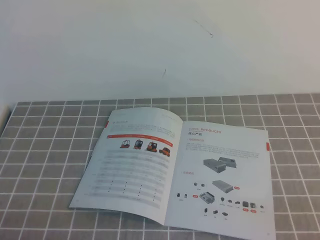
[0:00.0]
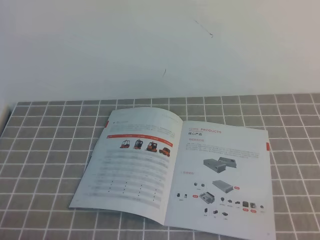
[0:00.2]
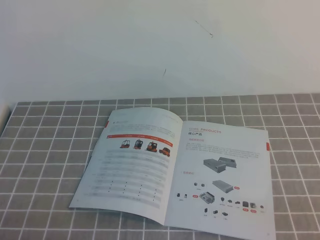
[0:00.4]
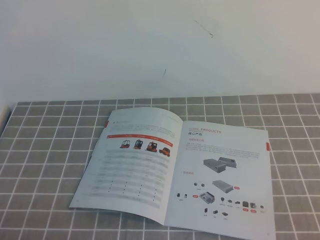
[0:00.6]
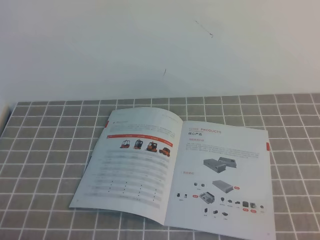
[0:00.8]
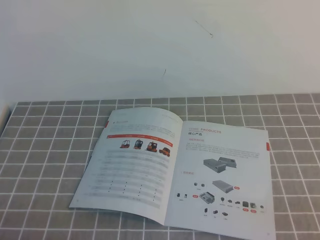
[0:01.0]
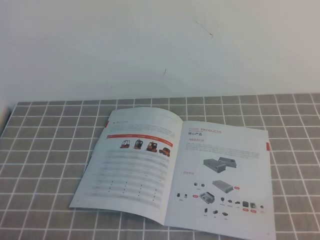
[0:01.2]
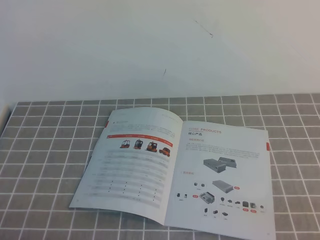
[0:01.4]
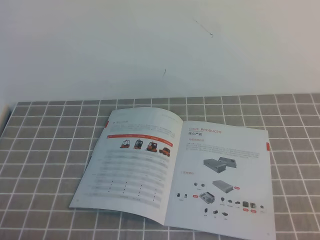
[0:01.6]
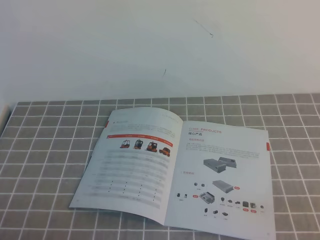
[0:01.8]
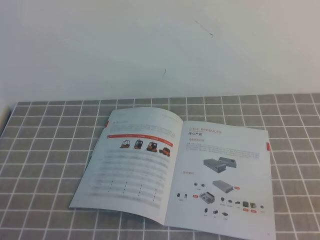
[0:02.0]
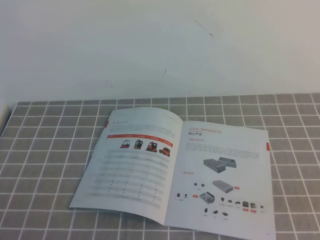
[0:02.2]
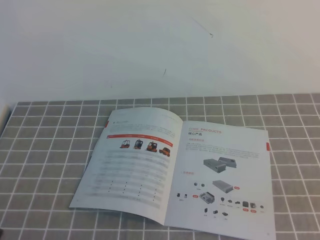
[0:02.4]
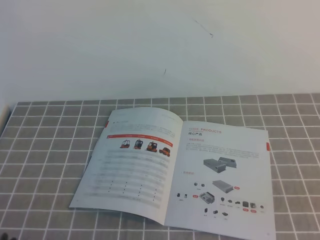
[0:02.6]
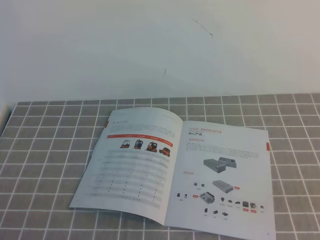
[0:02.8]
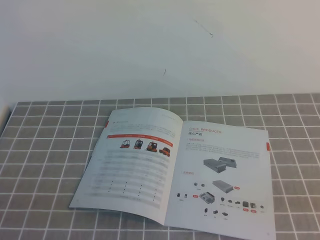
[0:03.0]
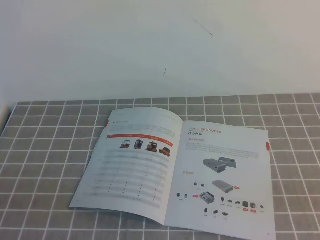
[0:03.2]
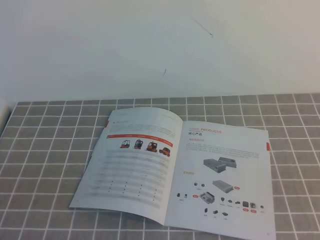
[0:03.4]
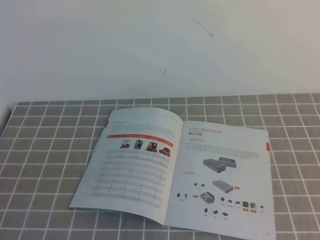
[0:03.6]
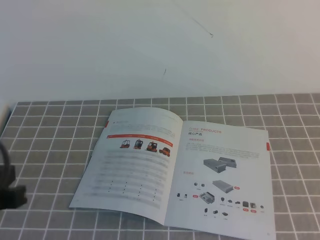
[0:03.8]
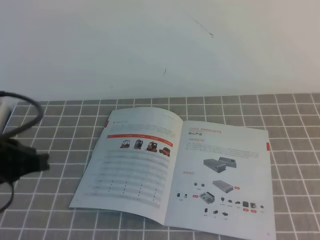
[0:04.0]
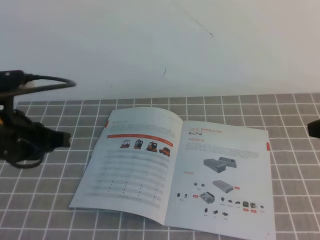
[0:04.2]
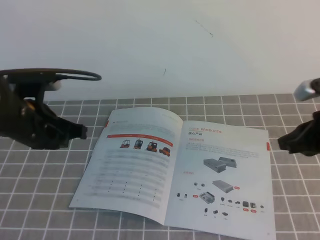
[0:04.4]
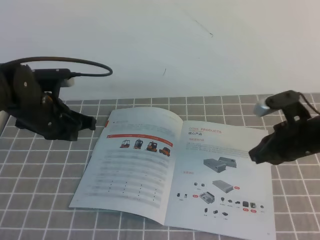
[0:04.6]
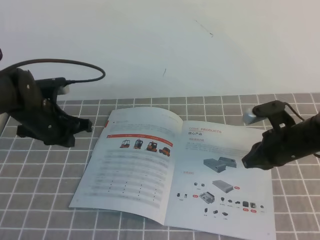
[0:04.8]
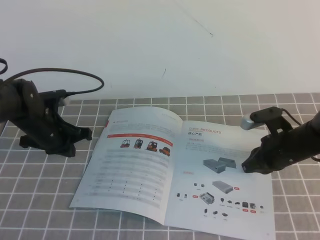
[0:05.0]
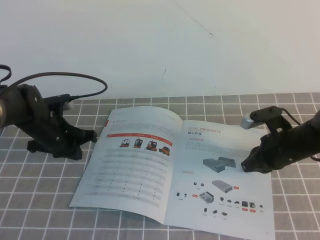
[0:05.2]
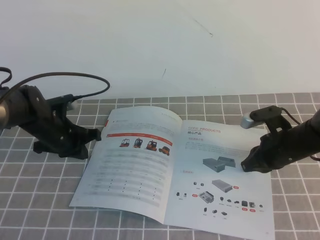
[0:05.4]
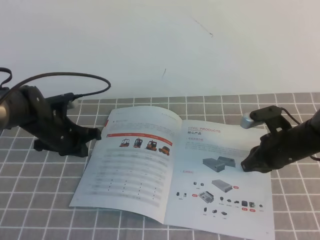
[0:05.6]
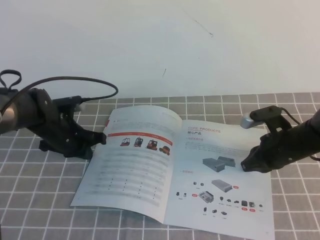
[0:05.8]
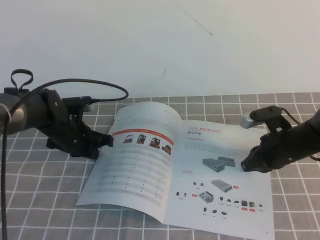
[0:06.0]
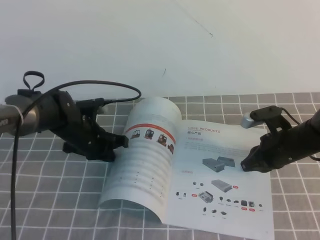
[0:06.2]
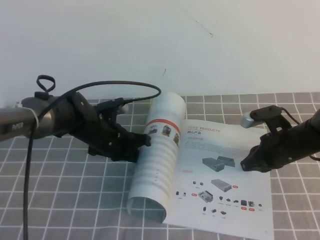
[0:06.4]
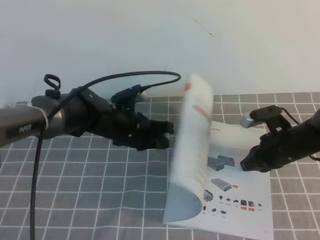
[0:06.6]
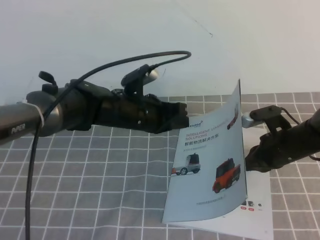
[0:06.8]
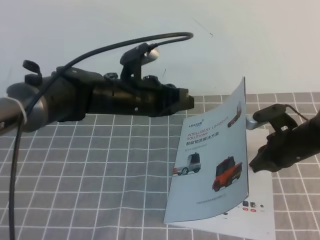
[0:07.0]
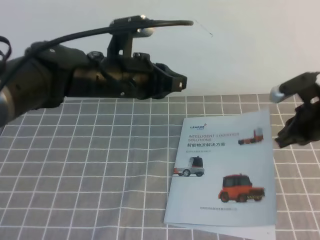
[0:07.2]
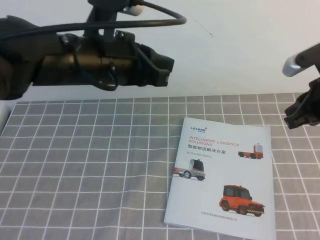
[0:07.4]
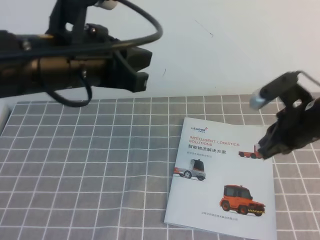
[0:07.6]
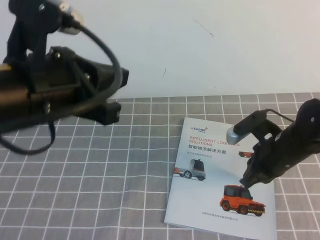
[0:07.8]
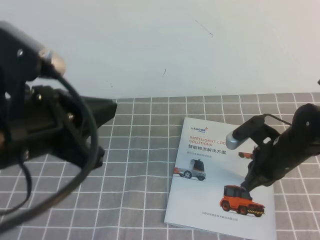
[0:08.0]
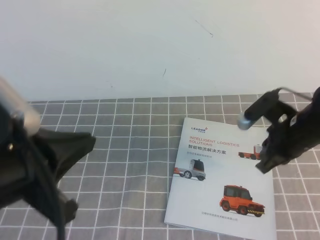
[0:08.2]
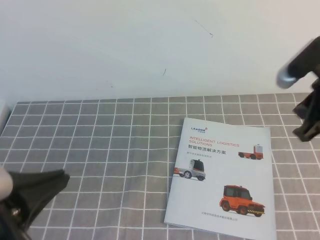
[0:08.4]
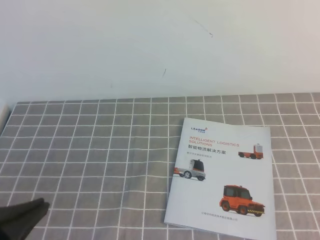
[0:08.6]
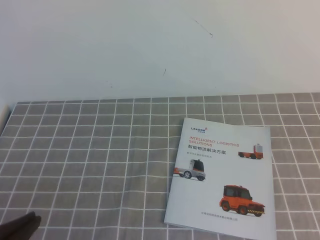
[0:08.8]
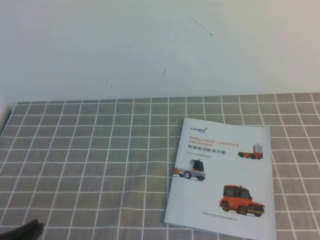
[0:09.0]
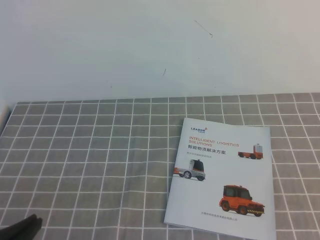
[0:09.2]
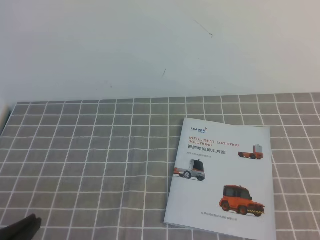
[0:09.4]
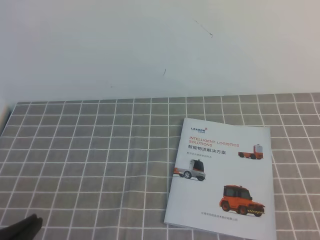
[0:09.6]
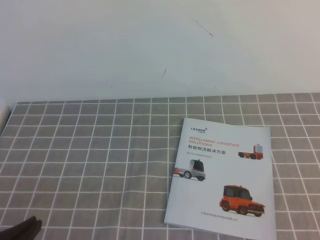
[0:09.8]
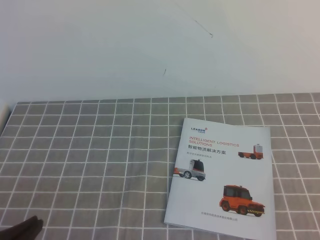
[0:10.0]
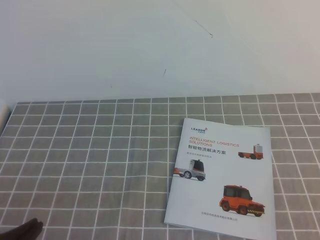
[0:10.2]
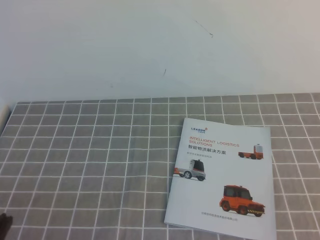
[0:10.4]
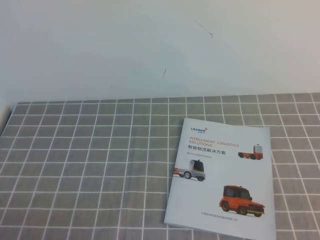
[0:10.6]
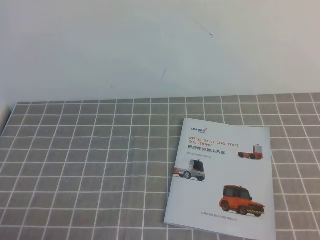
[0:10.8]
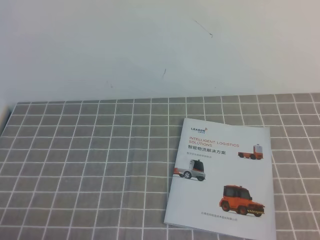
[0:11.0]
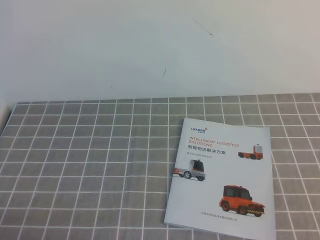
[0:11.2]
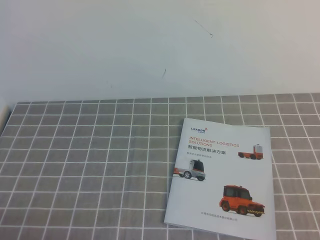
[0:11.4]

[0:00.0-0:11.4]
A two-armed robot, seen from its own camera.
Task of the whole recording: on the grey tablecloth, hold the book with one hand and close it with the other.
0:02.8 to 0:04.2: The left gripper moves forward, some 20 cm.
0:04.2 to 0:05.6: The right gripper goes some 20 cm downward, forward and to the left. The left gripper goes roughly 25 cm forward and downward.
0:05.6 to 0:07.2: The left gripper heads upward, to the right and backward, covering approximately 20 cm. Meanwhile the right gripper moves upward, roughly 5 cm.
0:07.2 to 0:08.6: The left gripper goes about 30 cm backward and to the left, while the right gripper swings up and down, roughly 20 cm each way, with 2 reversals.
0:08.6 to 0:10.0: The left gripper moves downward, approximately 5 cm; the right gripper heads backward and downward, covering about 20 cm.
0:10.0 to 0:11.4: The left gripper goes approximately 5 cm downward.

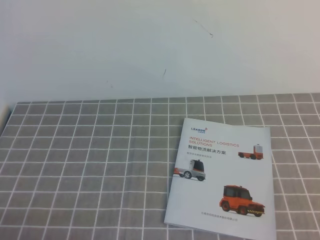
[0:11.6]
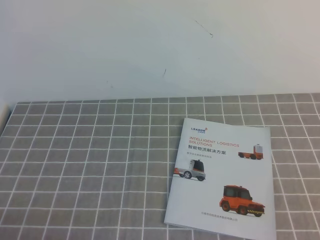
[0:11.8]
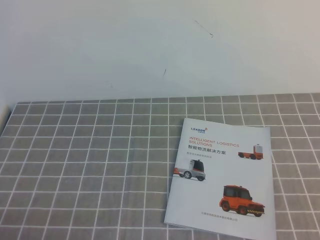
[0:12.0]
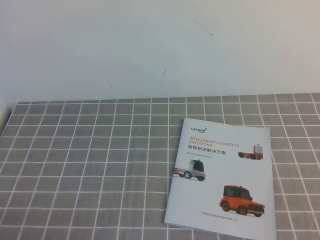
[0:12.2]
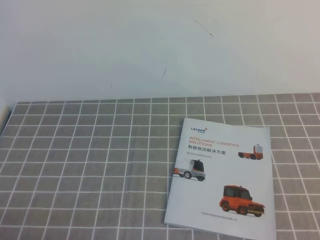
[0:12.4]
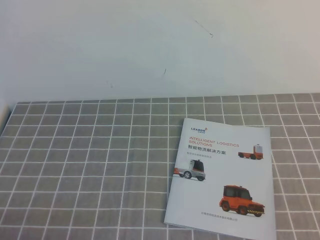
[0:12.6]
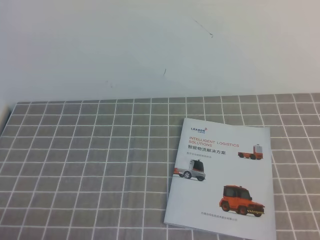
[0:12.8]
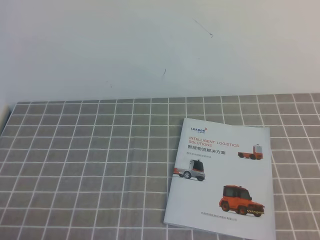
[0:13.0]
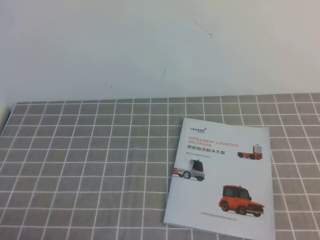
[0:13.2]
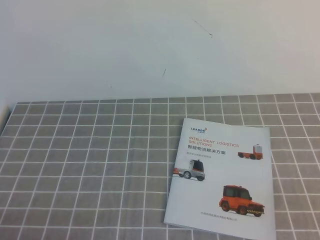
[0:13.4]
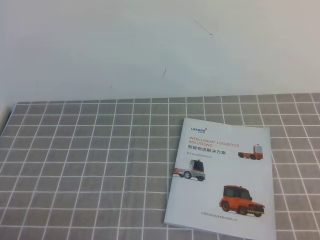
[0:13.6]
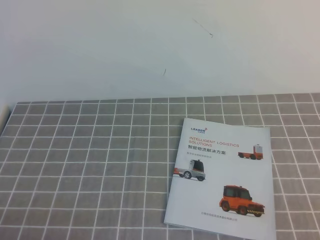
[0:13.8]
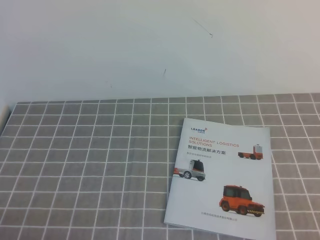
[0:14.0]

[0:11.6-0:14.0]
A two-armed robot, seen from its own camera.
Task of the whole recording: on the grey tablecloth, hold the book with one hand and close it with the other.
0:11.6 to 0:12.8: Both grippers stay put.
